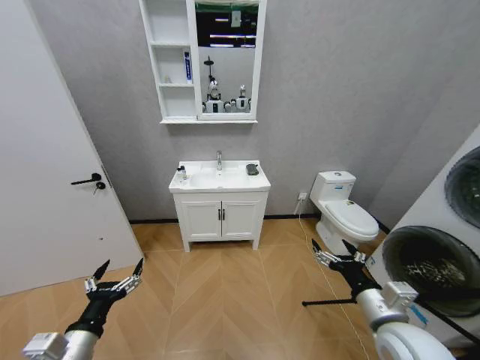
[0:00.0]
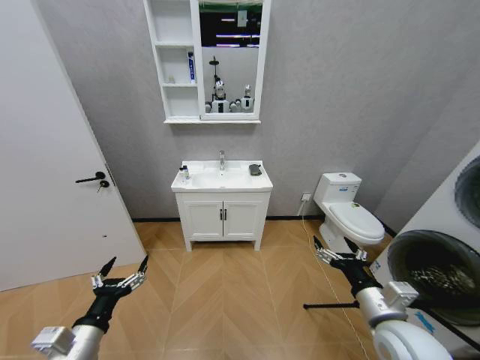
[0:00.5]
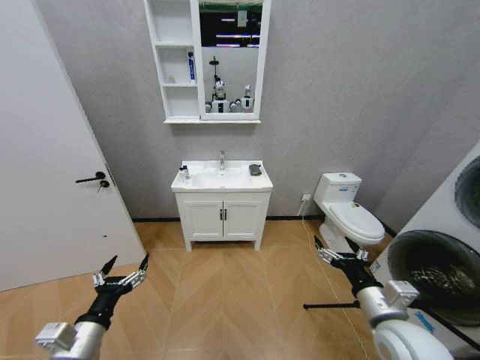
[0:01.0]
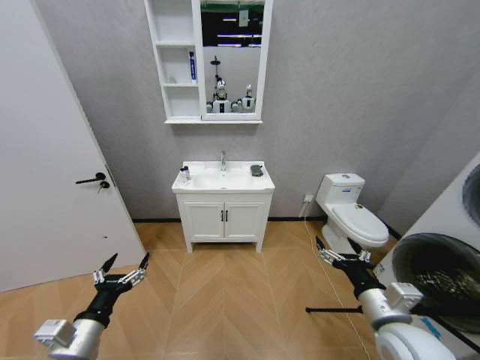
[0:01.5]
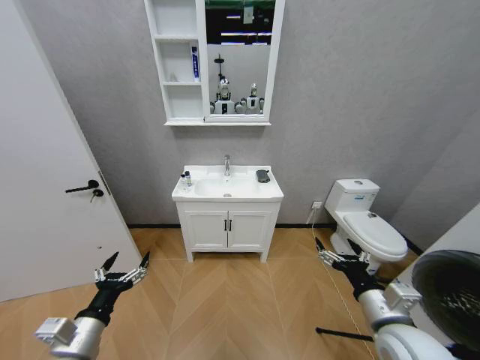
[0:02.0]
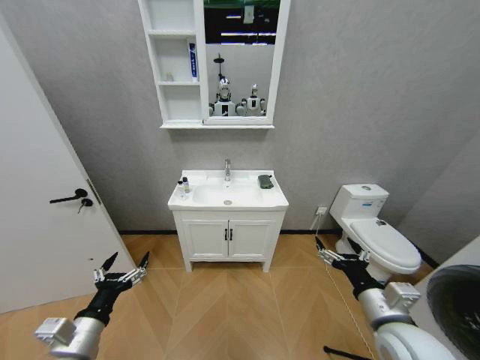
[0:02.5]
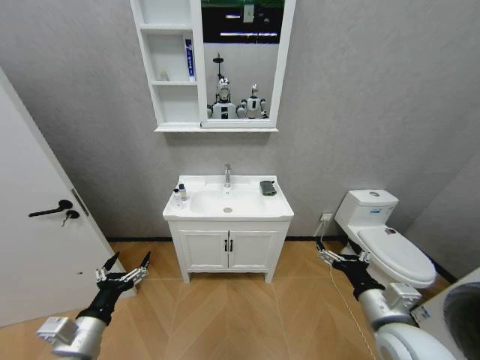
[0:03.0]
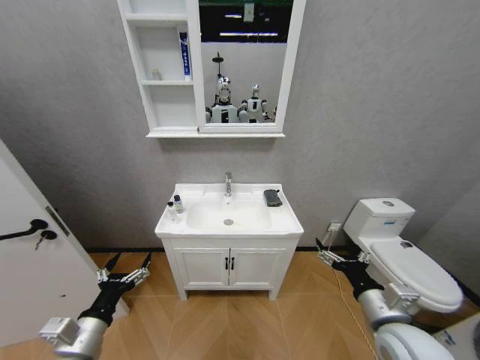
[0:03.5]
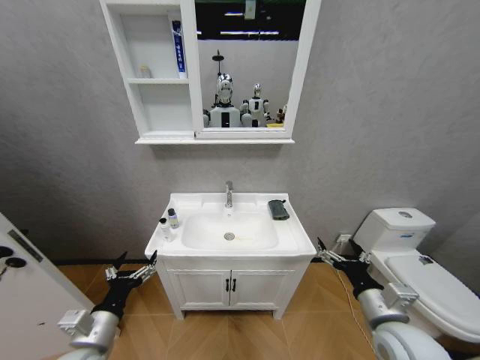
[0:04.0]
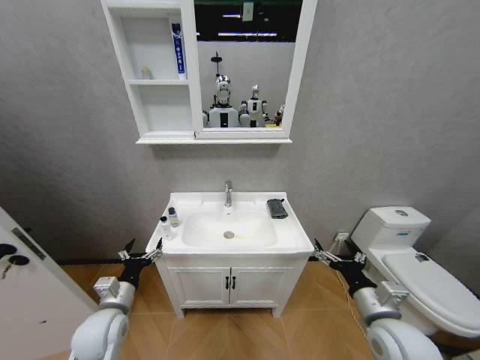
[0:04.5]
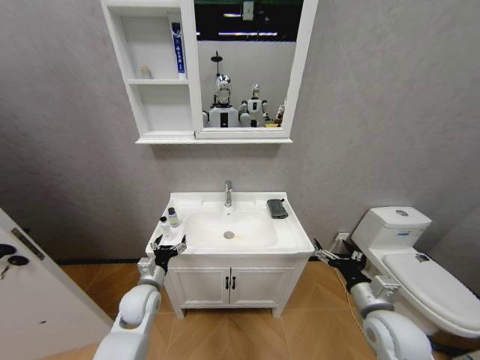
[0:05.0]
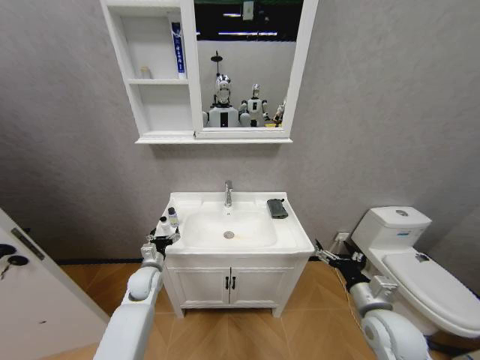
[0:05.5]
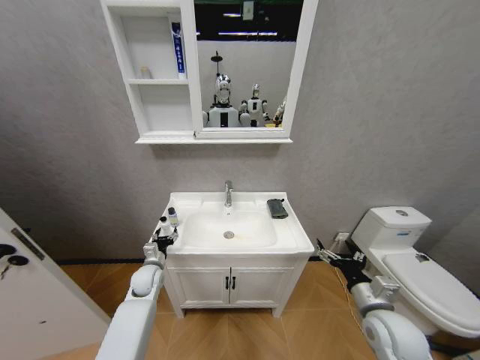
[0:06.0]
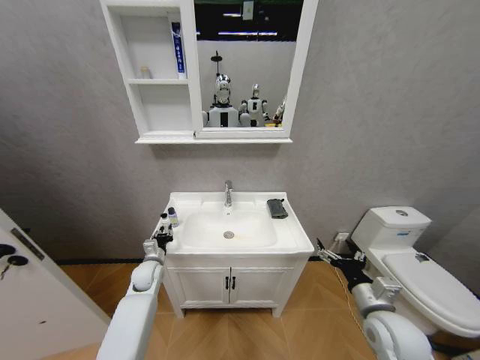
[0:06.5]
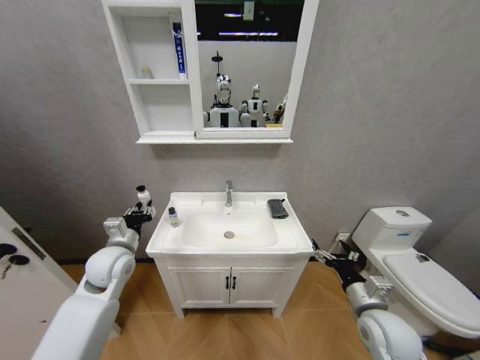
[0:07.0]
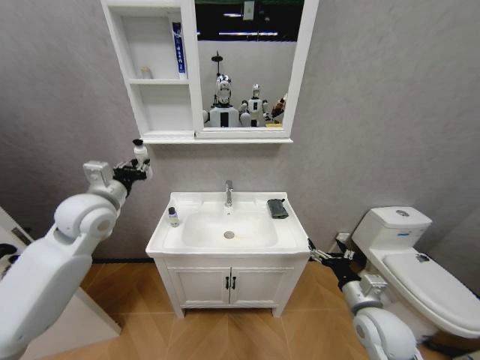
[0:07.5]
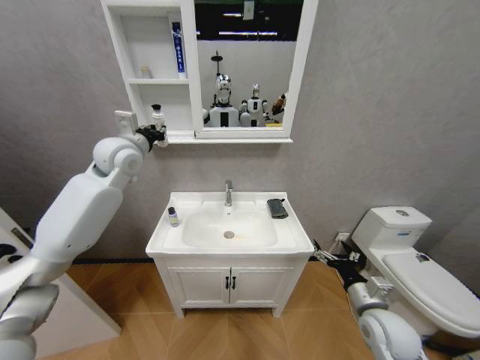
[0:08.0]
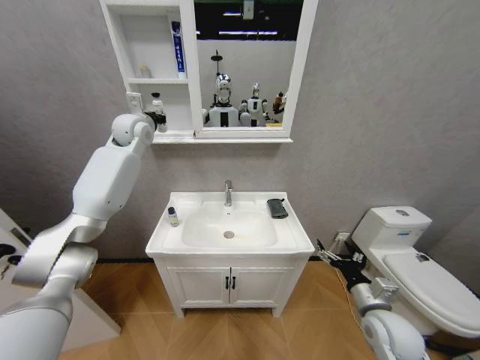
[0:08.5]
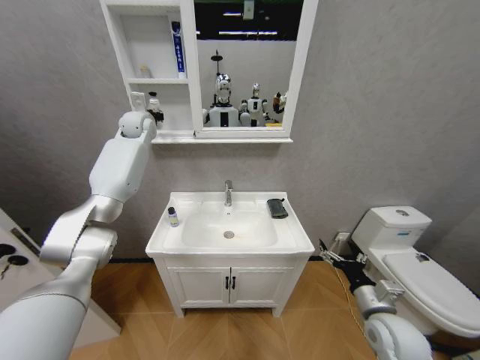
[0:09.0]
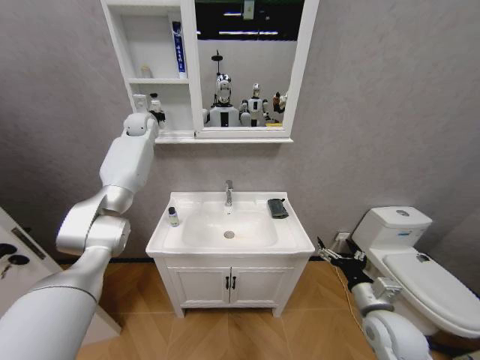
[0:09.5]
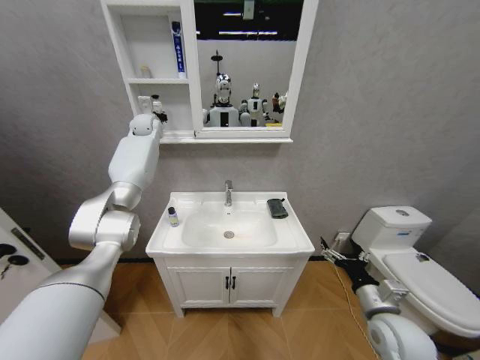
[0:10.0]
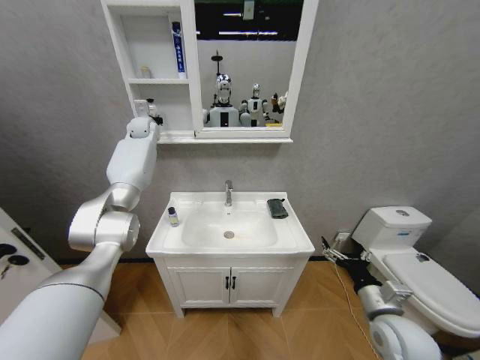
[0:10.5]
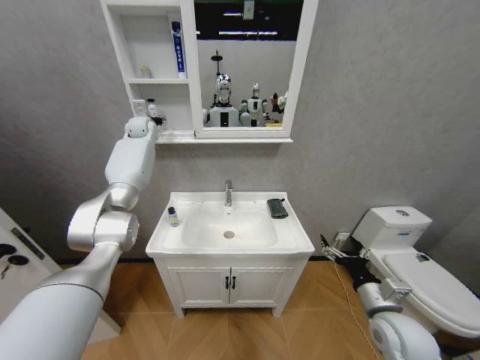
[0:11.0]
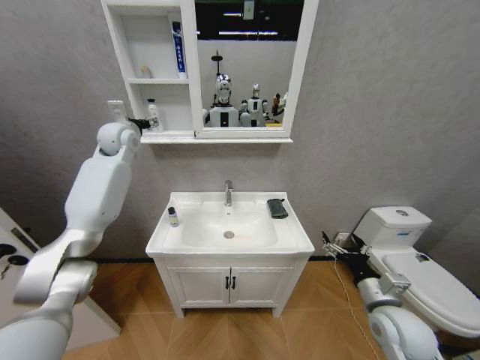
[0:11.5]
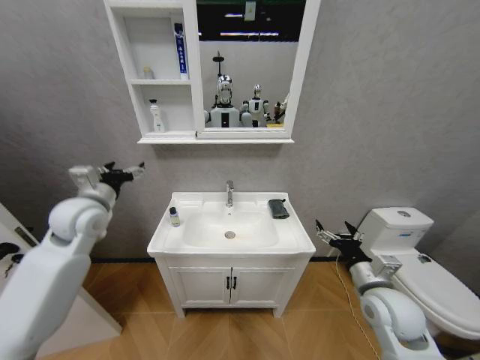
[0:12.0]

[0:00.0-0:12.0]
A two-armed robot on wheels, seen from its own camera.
Task of the whole recording: Move facial cleanser and shampoo from washbasin to cabinet, then wipe washbasin with towel.
0:04.0 to 0:06.0: The right gripper moves some 5 cm; the left gripper is displaced forward and downward by some 25 cm, and closes its fingers.
0:06.0 to 0:08.0: The left gripper heads upward, covering some 40 cm, and closes.
0:08.0 to 0:10.0: The left gripper heads forward, covering roughly 20 cm.
0:10.0 to 0:12.0: The right gripper ends up roughly 5 cm from where it was. Meanwhile the left gripper heads backward, covering about 30 cm, and opens its fingers.

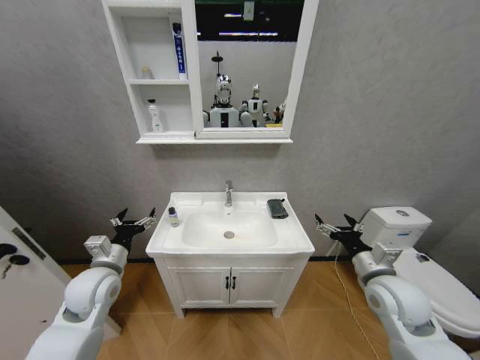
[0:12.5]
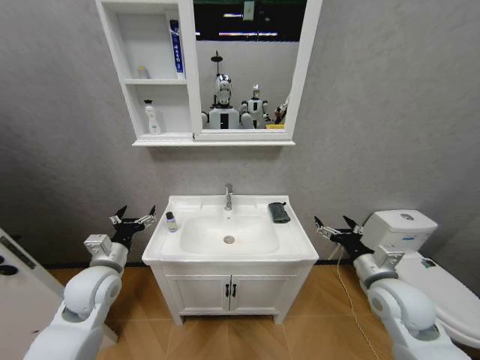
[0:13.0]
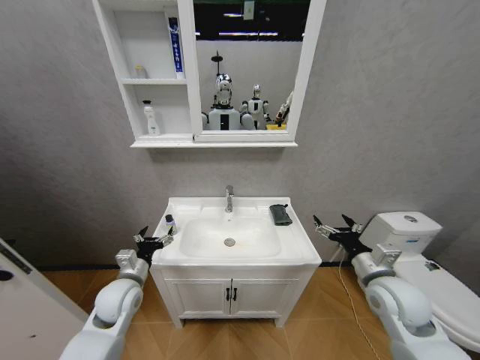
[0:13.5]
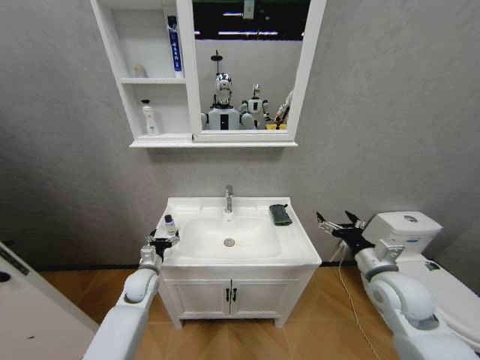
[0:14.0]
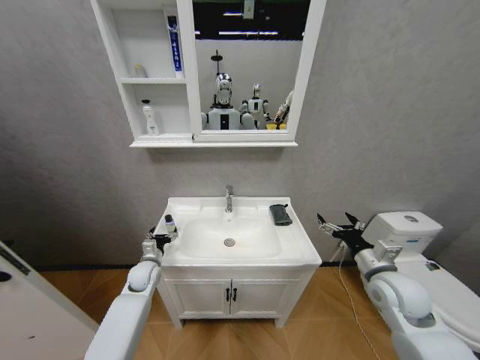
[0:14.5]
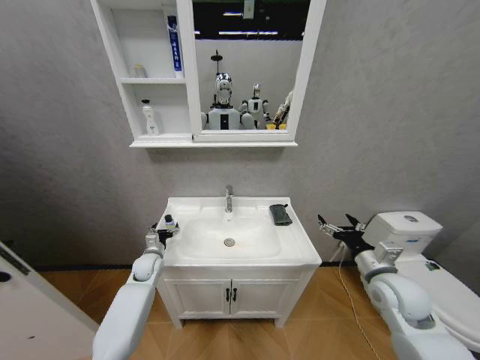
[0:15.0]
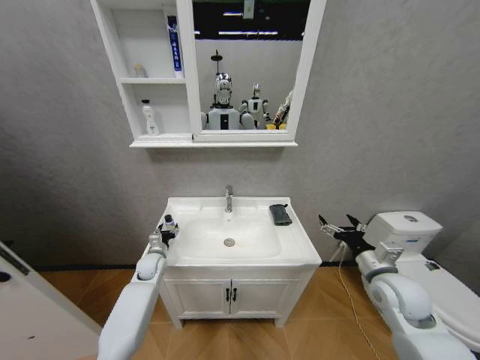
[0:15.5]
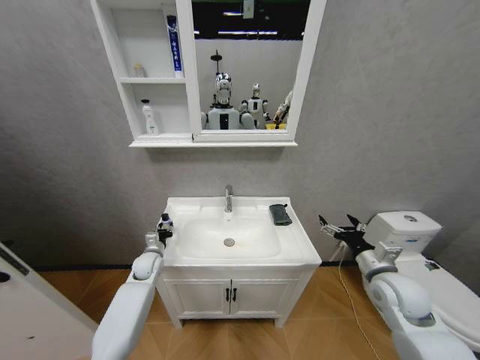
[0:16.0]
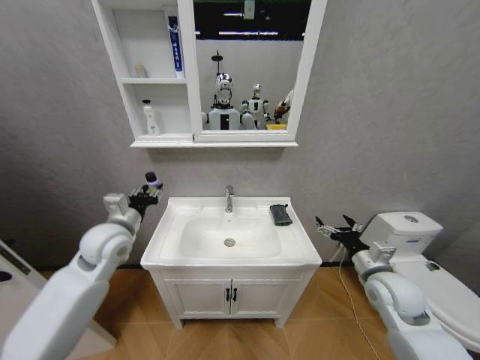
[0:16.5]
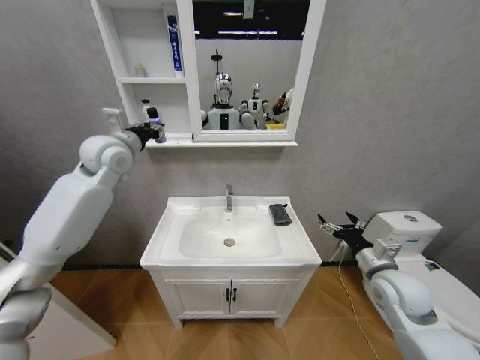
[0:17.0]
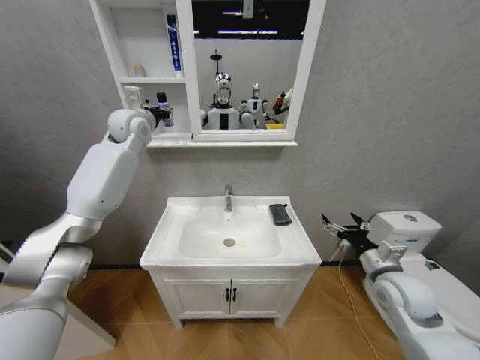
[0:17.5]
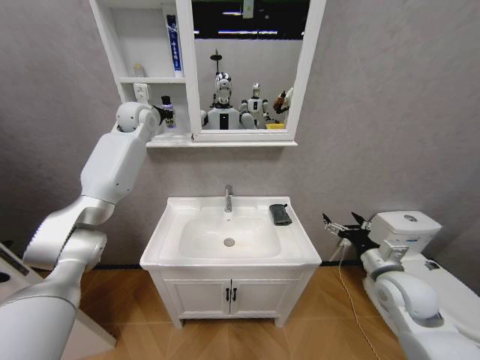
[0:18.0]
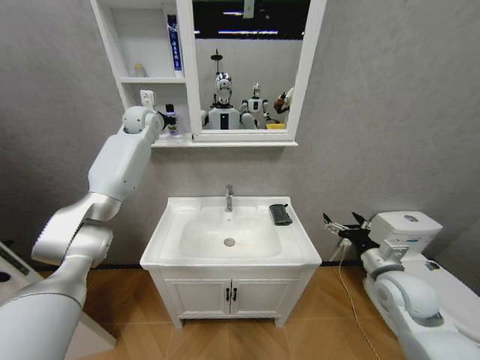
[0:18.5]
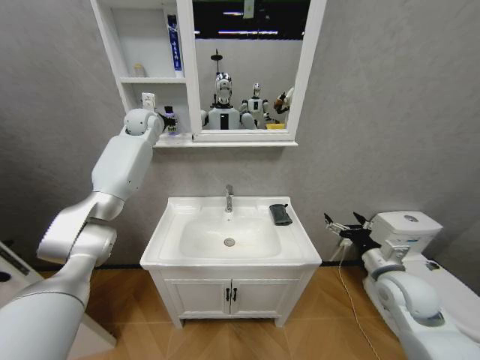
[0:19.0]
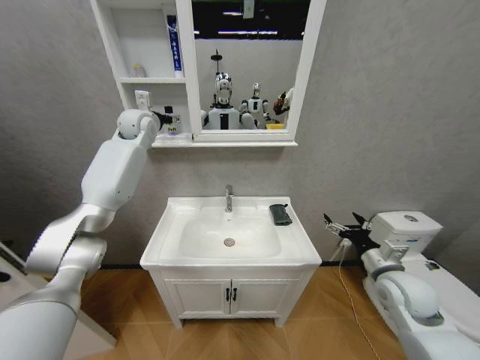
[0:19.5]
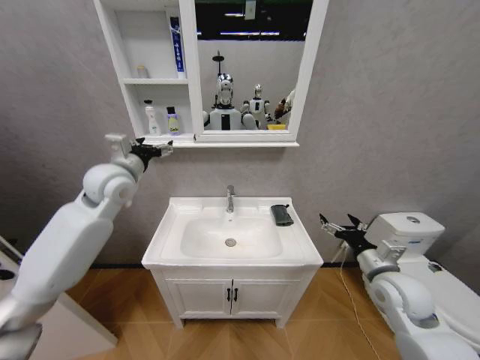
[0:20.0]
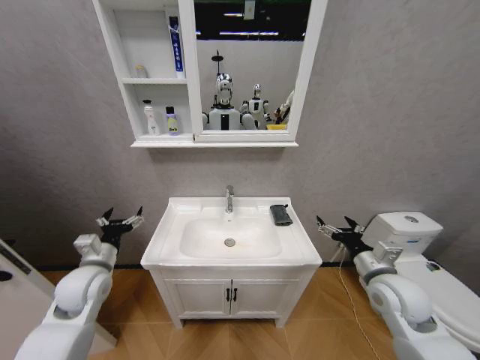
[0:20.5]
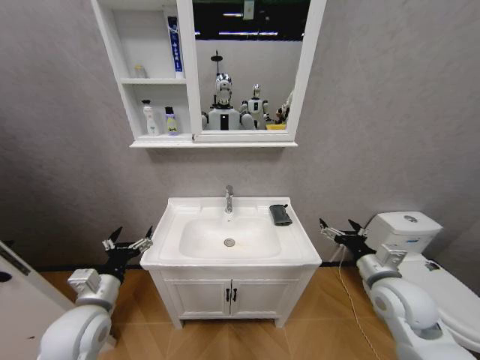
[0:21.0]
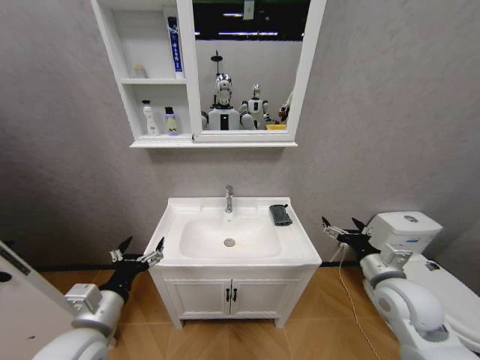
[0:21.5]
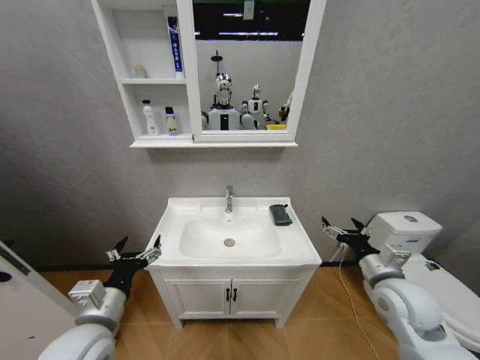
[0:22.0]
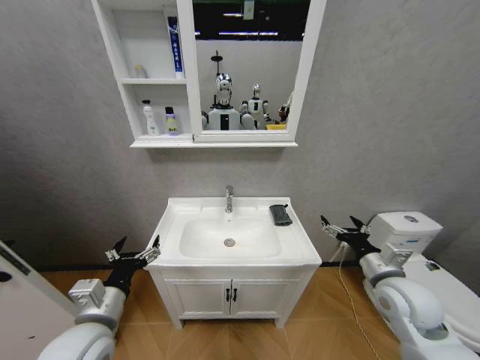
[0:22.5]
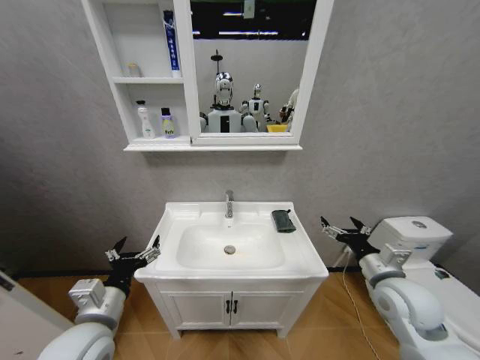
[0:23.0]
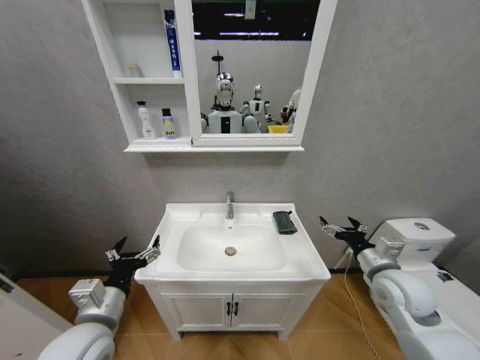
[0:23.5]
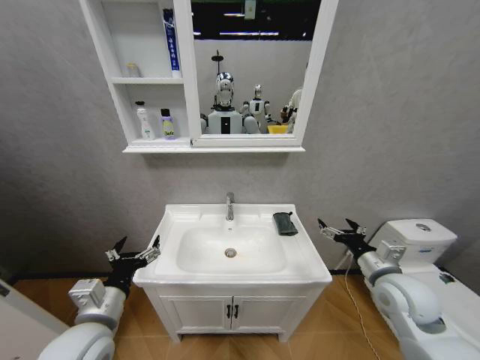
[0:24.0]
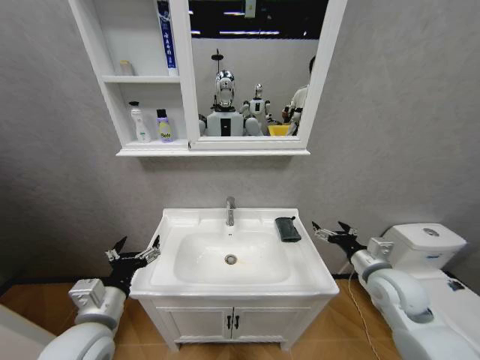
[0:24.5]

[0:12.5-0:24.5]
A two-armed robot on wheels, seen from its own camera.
Task of the whole recording: Move facial cleanser and shampoo from washbasin to cabinet, then wipe washbasin with towel.
0:12.5 to 0:14.5: The left gripper shifts some 20 cm downward and forward.
0:14.5 to 0:16.5: The left gripper travels upward by about 25 cm, and closes up.
0:16.5 to 0:18.5: The left gripper moves forward and upward, some 35 cm.
0:18.5 to 0:20.5: The left gripper moves backward and downward, roughly 40 cm, and opens up.
0:20.5 to 0:22.5: The left gripper shifts approximately 15 cm backward and to the right.

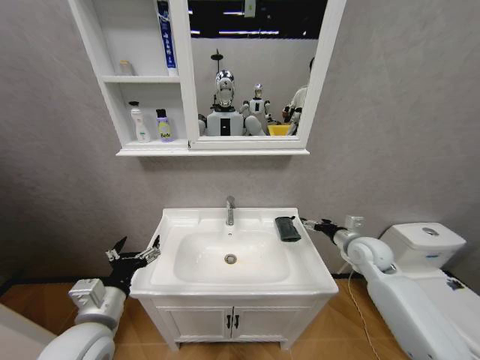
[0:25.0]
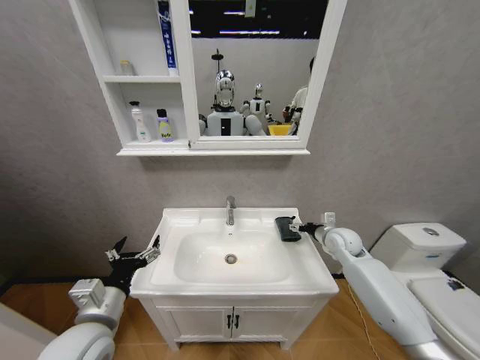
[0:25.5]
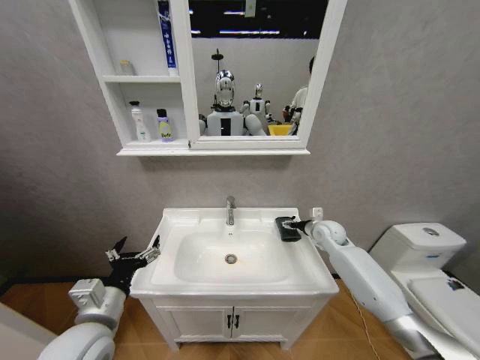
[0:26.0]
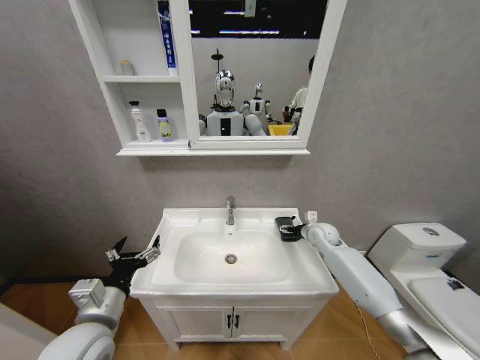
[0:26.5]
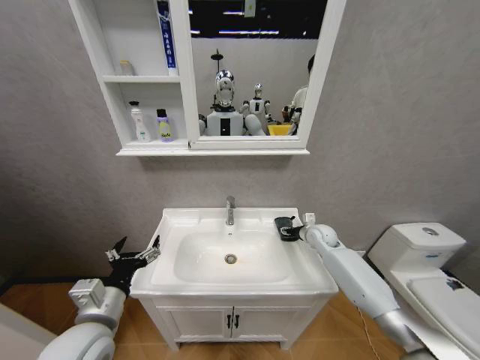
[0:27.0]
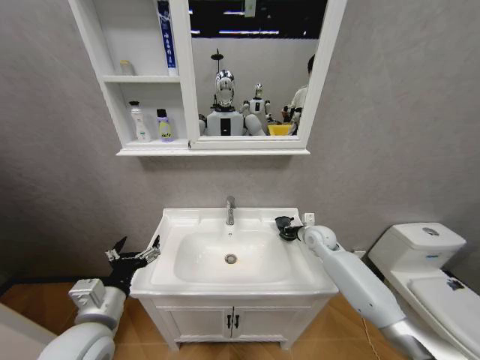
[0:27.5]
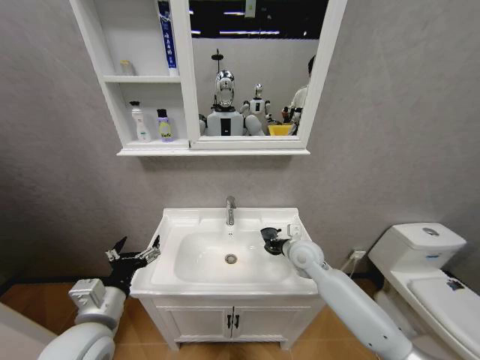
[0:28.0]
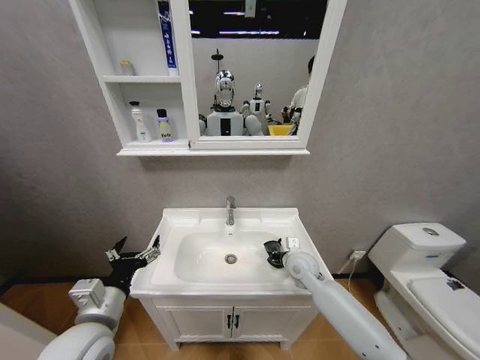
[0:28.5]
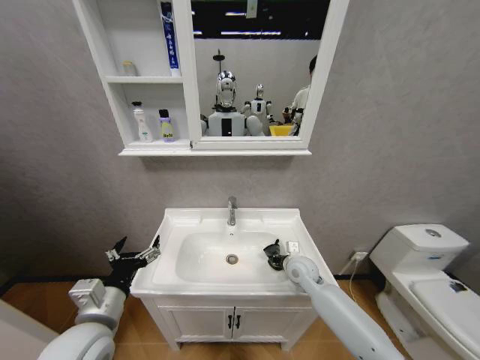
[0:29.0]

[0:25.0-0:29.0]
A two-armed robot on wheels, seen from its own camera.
Task of the whole recording: Move facial cleanser and shampoo from washbasin to cabinet, then wipe washbasin with towel.
0:25.0 to 0:27.0: The right gripper heads forward, downward and to the left, covering approximately 15 cm, and closes up.
0:27.0 to 0:29.0: The right gripper shifts some 15 cm backward and to the left, and closes up.
